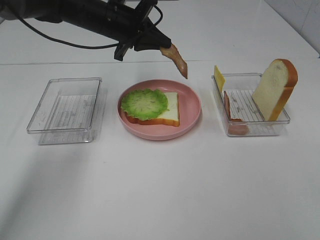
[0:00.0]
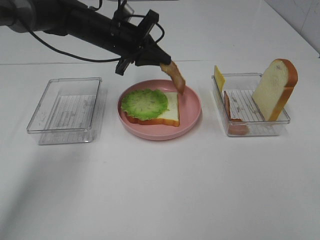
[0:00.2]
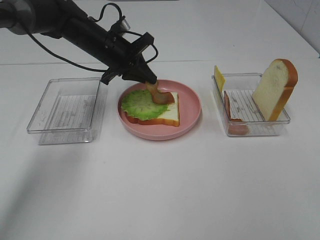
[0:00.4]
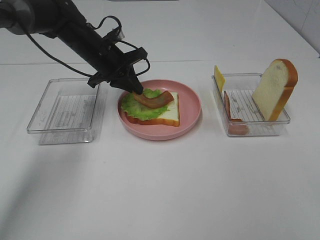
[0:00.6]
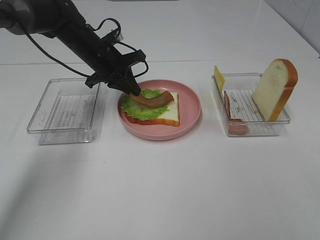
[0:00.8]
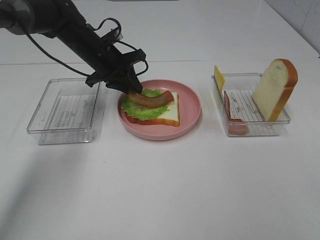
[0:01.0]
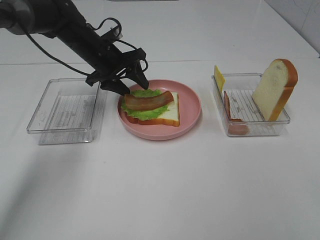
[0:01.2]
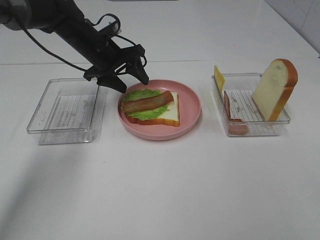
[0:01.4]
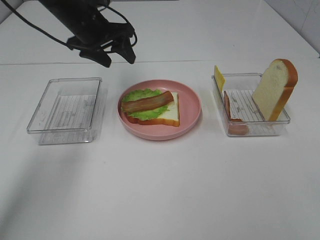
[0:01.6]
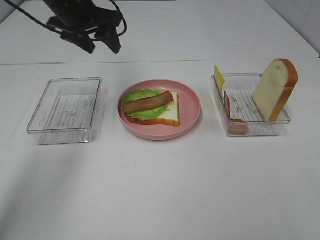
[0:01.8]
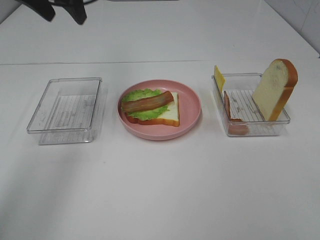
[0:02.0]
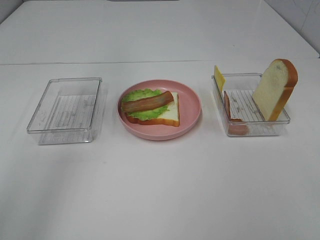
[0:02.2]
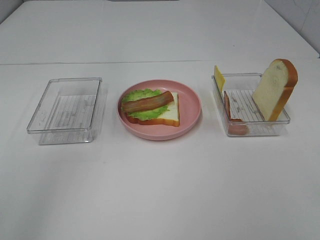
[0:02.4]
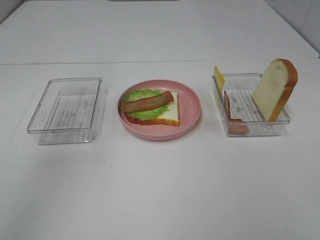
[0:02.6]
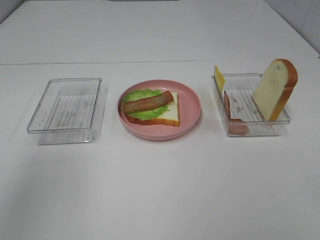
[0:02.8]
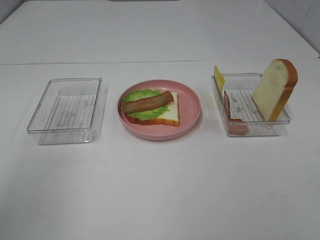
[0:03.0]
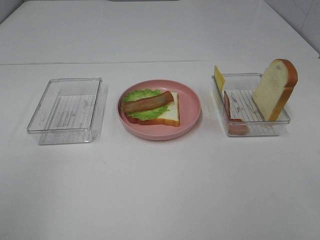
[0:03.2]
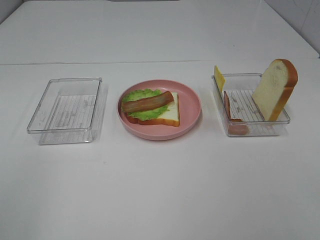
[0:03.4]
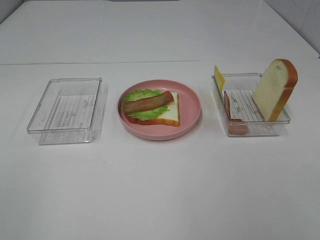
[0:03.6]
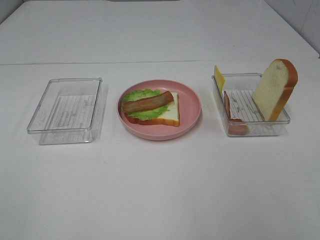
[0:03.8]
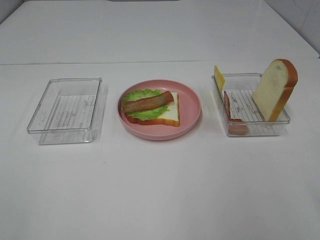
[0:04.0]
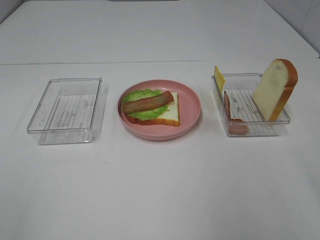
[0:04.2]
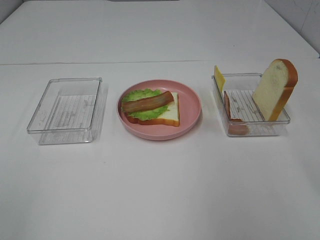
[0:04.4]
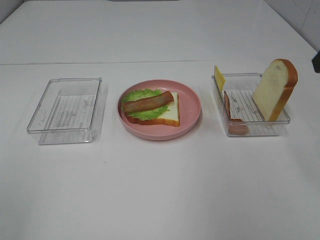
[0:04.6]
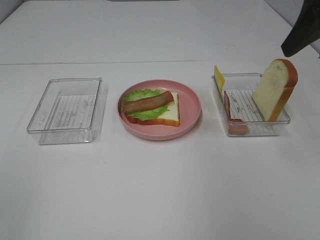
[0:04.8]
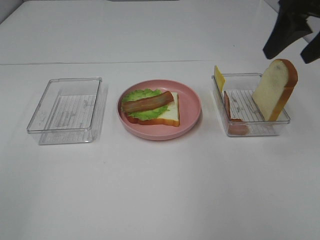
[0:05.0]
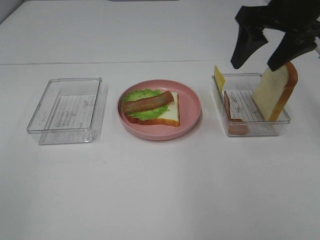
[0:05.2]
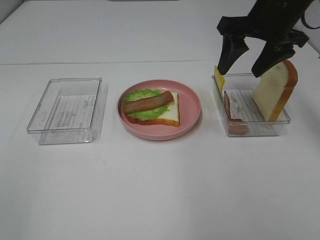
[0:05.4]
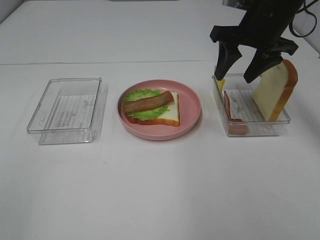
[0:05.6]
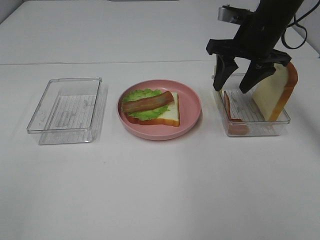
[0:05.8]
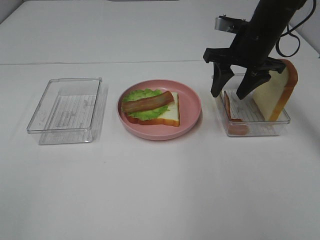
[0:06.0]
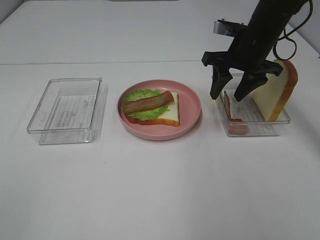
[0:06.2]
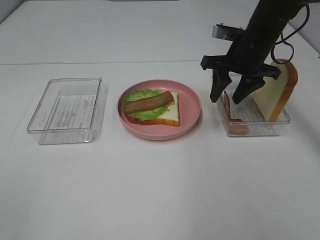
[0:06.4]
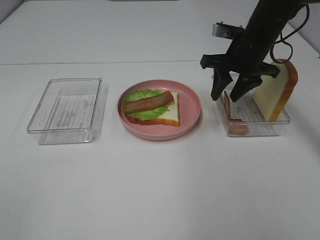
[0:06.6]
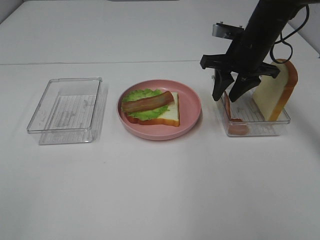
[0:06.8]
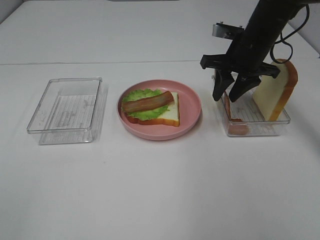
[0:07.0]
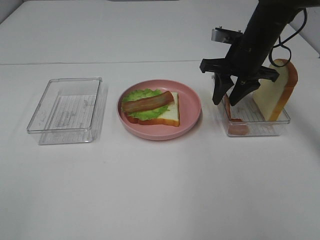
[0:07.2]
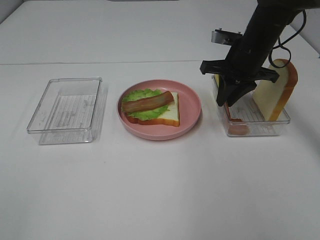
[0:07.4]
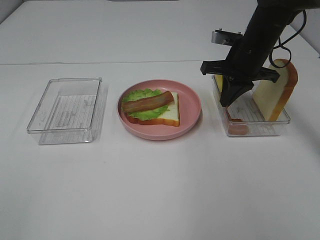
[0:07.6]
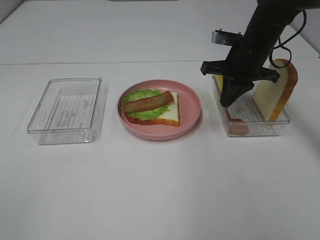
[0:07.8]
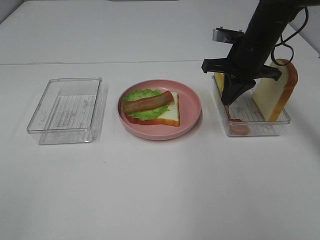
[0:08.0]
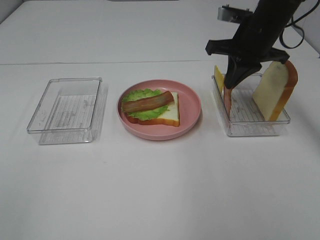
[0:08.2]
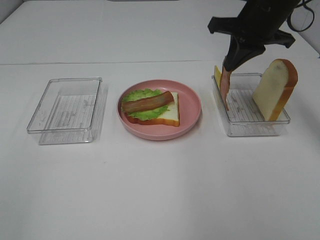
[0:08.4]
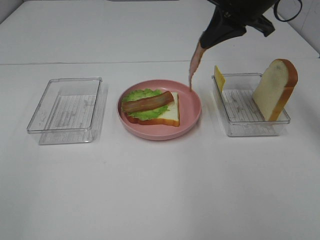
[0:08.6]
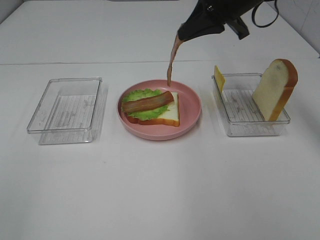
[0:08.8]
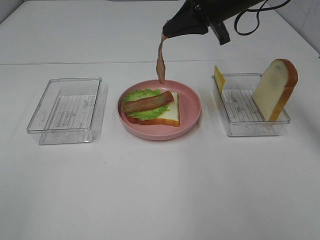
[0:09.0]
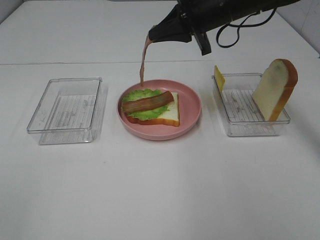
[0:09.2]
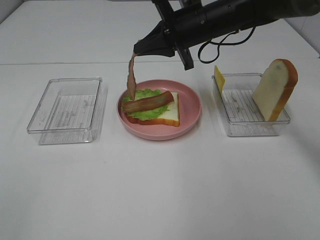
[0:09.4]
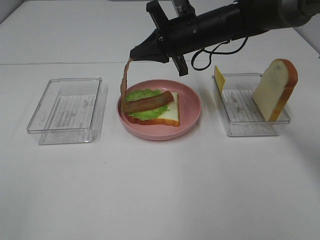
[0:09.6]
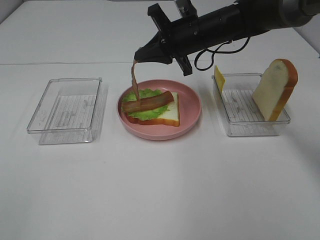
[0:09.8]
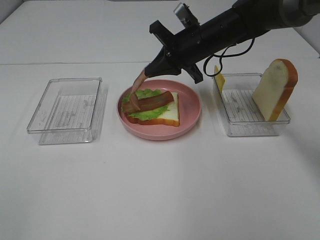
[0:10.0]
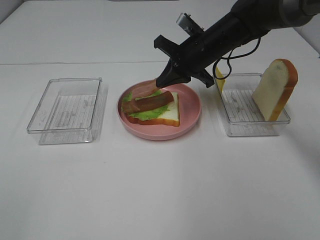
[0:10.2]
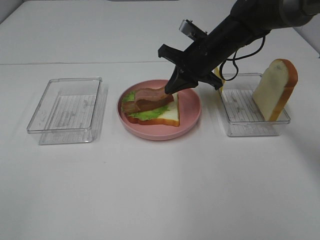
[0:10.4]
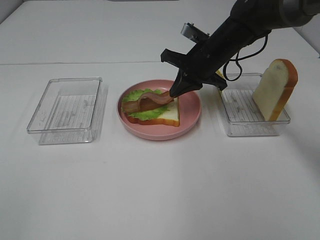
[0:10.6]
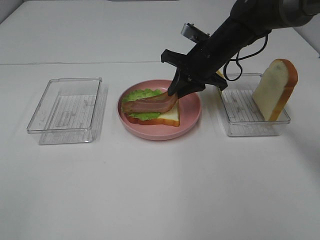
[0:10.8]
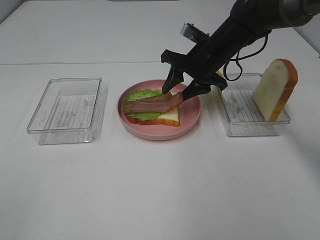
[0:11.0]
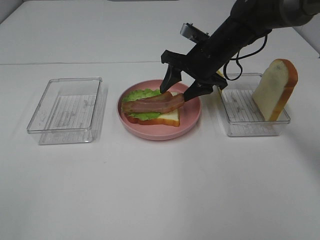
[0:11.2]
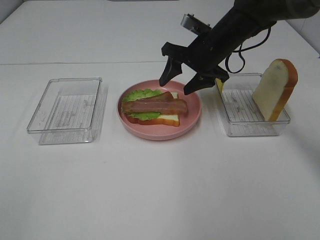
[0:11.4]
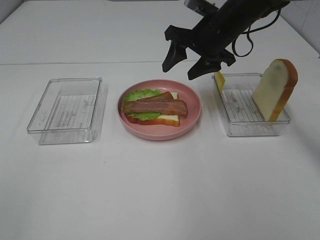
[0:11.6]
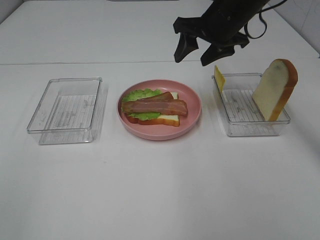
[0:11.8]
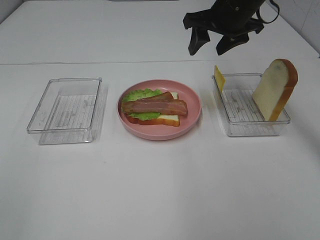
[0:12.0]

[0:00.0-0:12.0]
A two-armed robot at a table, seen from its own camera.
Task of the whole recording: Make sandwiches.
Step, 1.8 to 7.8 s: Right hand:grab the bacon.
Step, 8.0 to 11.6 s: Right hand:place bacon on bacon.
0.0 to 1.6 s: The left gripper reaches roughly 5 cm downward, then returns, and opens its fingers.
1.6 to 3.0 s: The left gripper is displaced backward by about 35 cm.
4.4 to 6.0 s: The right gripper goes some 25 cm forward, downward and to the left.
6.0 to 7.6 s: The right gripper closes its fingers.
7.6 to 9.0 s: The right gripper shifts some 10 cm upward and to the left.
9.0 to 10.4 s: The right gripper is displaced downward by roughly 10 cm.
10.4 to 12.0 s: The right gripper heads upward, covering approximately 10 cm, and opens.

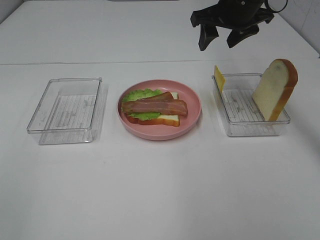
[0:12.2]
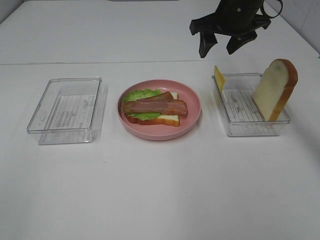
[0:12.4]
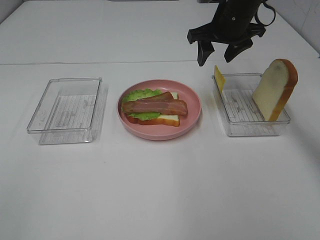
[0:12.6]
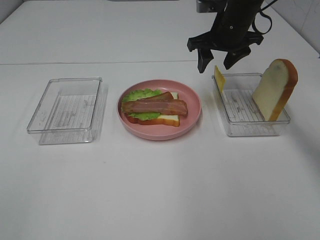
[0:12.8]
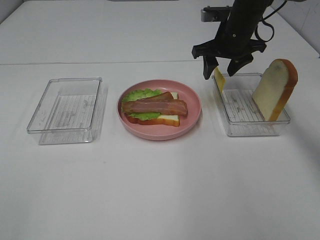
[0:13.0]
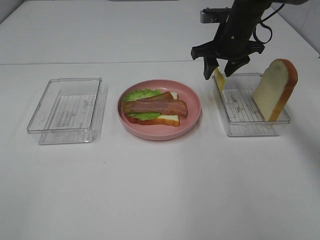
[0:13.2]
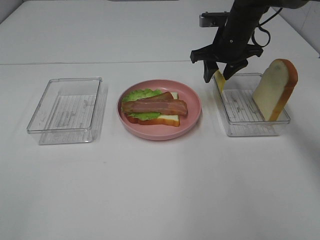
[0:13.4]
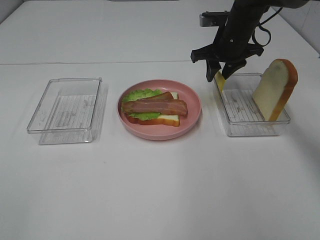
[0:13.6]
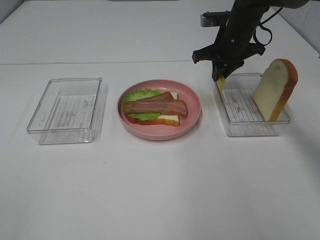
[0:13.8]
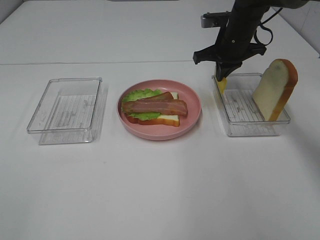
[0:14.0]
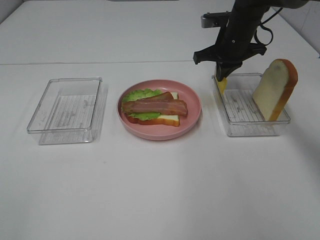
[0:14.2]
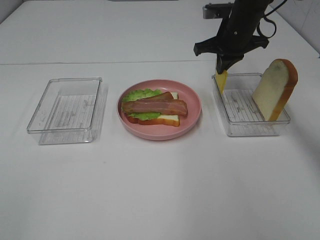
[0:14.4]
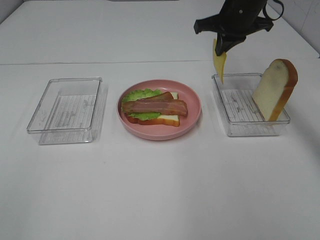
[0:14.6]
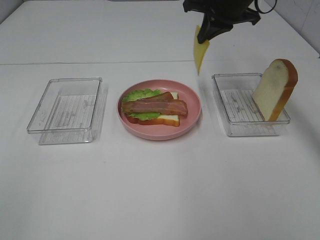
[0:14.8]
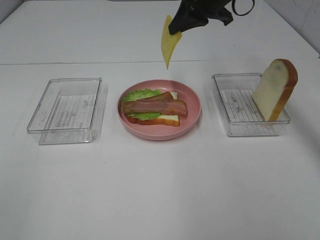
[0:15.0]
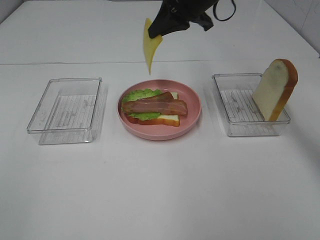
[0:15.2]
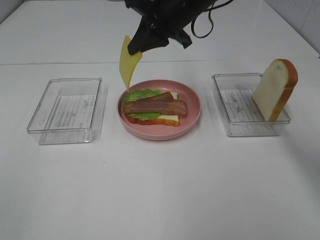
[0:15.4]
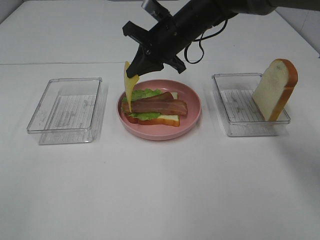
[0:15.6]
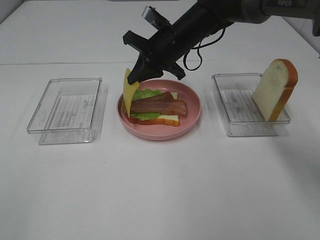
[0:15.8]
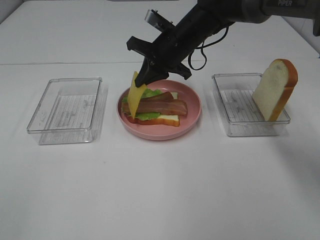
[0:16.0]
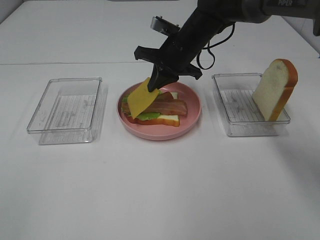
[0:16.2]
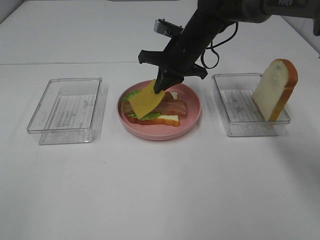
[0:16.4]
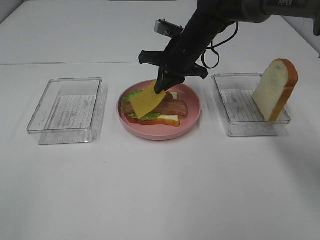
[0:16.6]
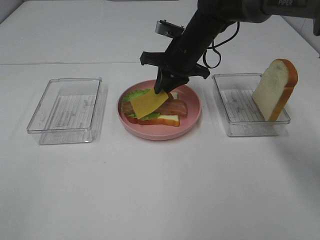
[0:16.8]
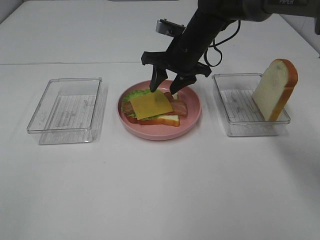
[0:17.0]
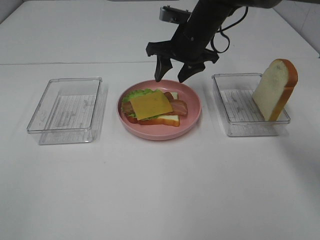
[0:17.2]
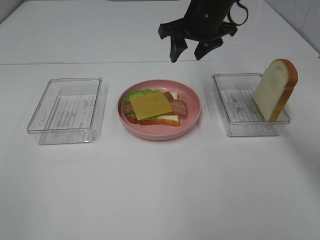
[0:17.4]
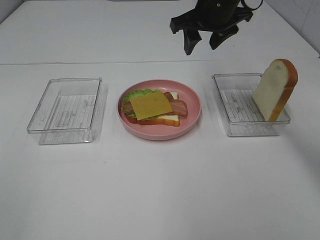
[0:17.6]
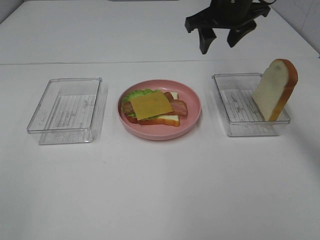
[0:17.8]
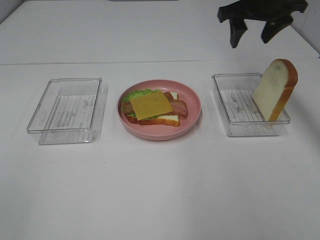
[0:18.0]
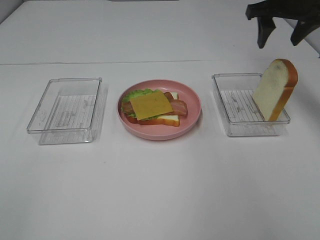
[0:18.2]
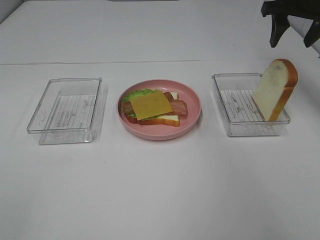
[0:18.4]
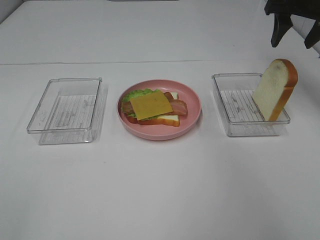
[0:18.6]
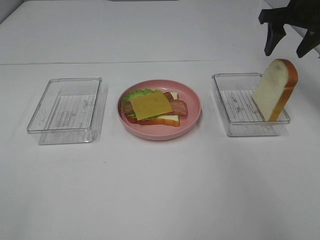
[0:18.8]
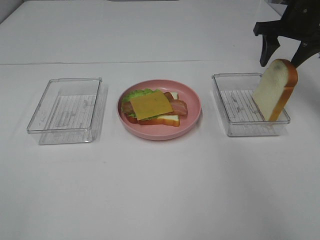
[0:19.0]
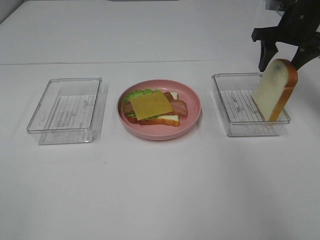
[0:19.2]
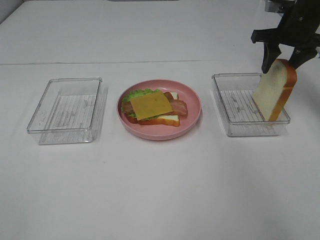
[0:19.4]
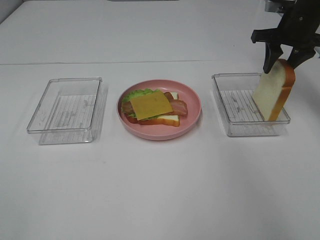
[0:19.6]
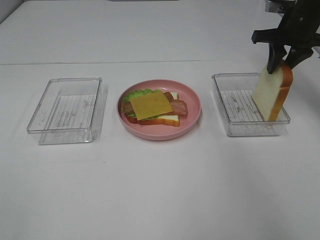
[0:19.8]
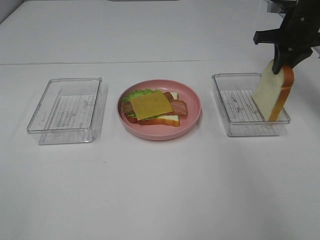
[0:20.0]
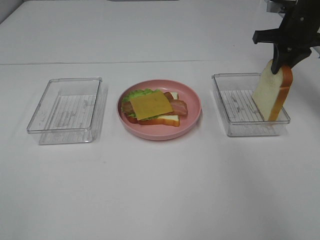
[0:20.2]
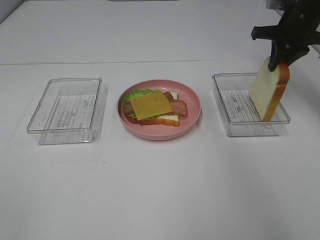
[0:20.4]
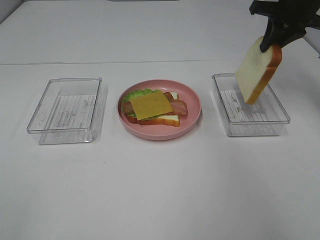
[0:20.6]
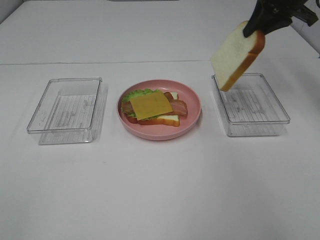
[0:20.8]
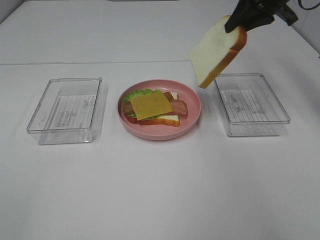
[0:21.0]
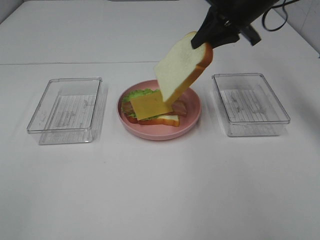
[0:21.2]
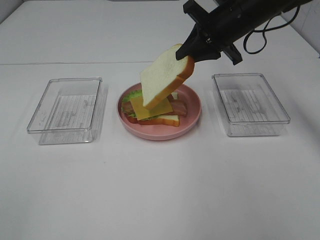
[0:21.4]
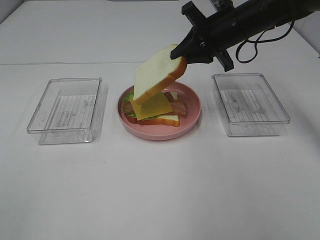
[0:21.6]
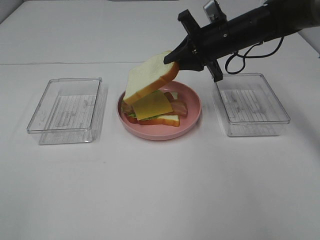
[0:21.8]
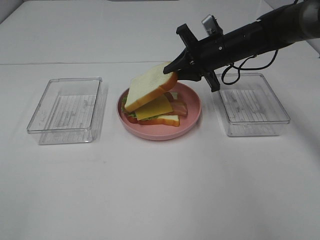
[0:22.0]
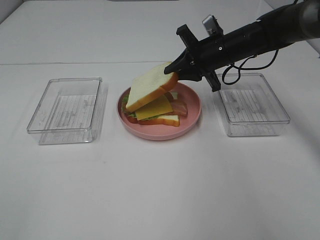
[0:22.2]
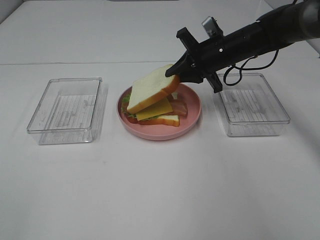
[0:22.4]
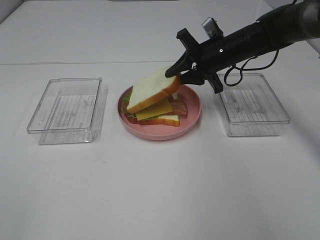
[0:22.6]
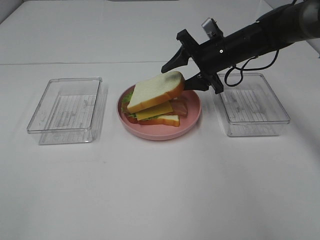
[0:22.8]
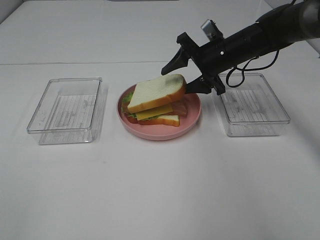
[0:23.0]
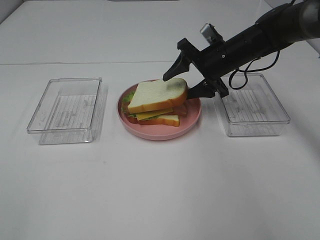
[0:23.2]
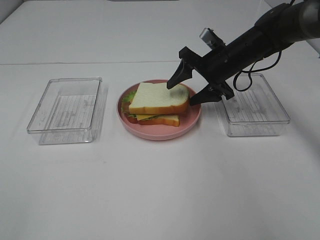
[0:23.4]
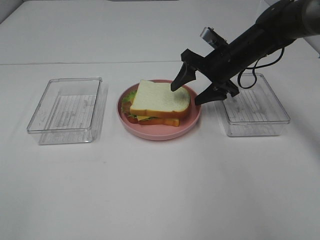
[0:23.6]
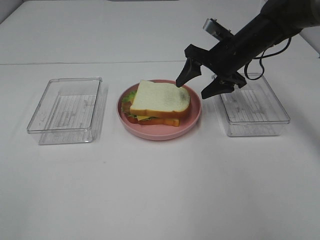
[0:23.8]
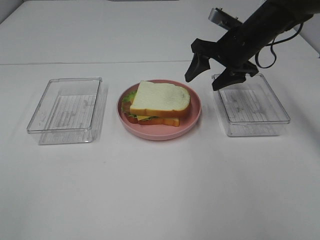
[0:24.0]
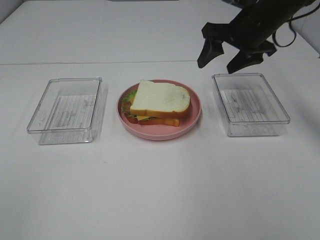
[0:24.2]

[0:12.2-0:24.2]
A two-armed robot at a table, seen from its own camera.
Task of the whole recording: Make sandwiches.
Step, 12.2 to 13.8 s: Right hand:grab the cheese slice.
Step, 14.0 to 17.2 s: Right hand:place the cheese slice on top of the bacon.
Step, 17.4 to 20.0 s: Right hand:grab the bread slice.
Step, 20.2 to 24.2 s: Right hand:place the bread slice on the cheese slice.
12.2 to 13.8 s: The right gripper heads downward, covering some 10 cm, and closes.
13.8 to 15.2 s: The right gripper goes some 15 cm upward and to the left.
15.2 to 16.6 s: The right gripper shifts roughly 10 cm downward.
16.6 to 18.2 s: The right gripper goes roughly 20 cm to the right and upward, and opens its fingers.
18.2 to 19.8 s: The right gripper shifts roughly 5 cm downward, and closes.
19.8 to 21.2 s: The right gripper travels to the left by some 10 cm.
21.2 to 22.6 s: The right gripper goes some 10 cm downward.
22.6 to 24.2 s: The right gripper goes about 10 cm upward, and opens up.
